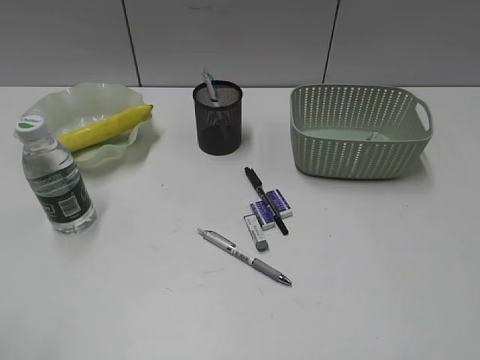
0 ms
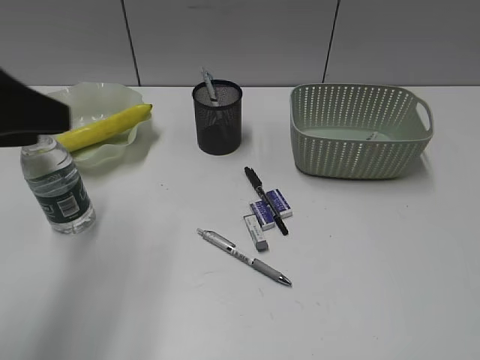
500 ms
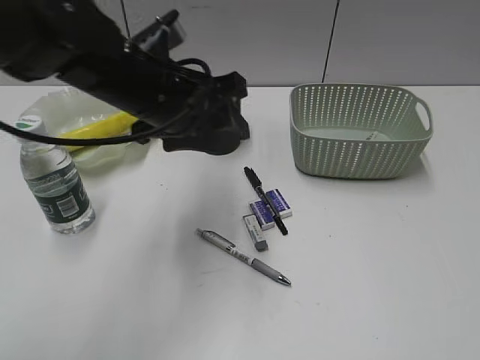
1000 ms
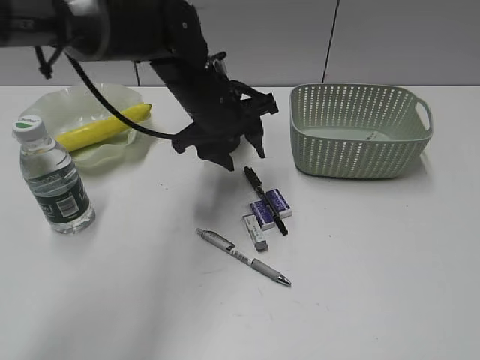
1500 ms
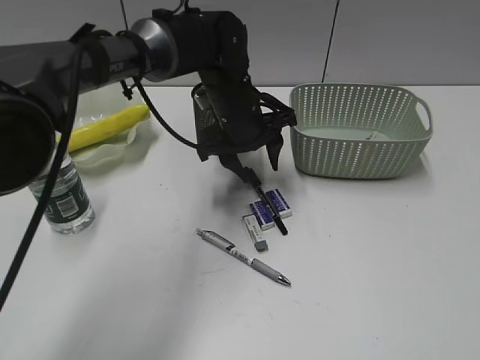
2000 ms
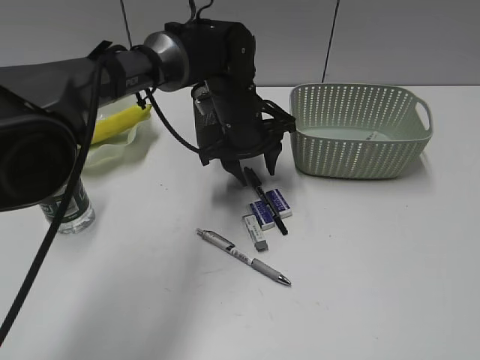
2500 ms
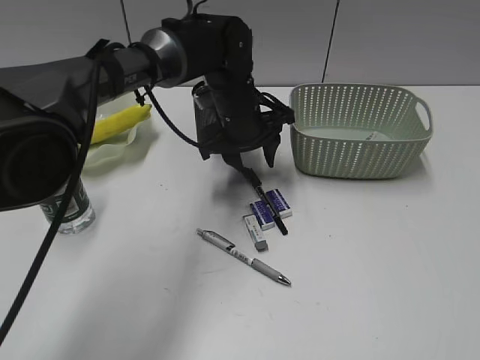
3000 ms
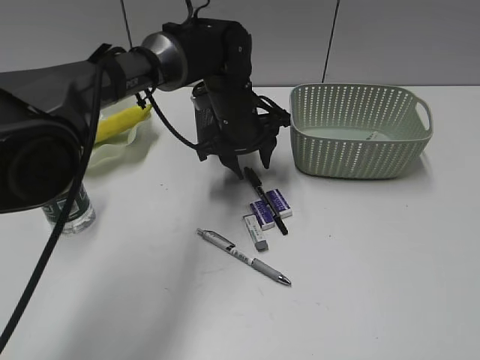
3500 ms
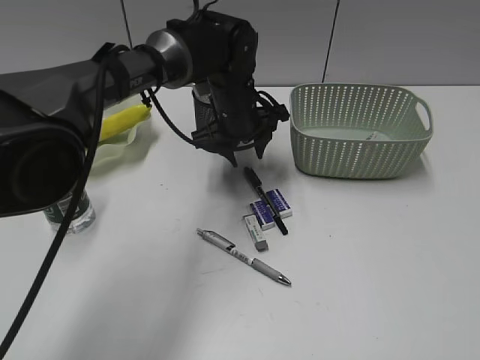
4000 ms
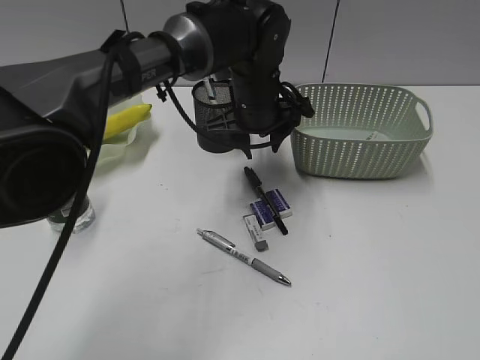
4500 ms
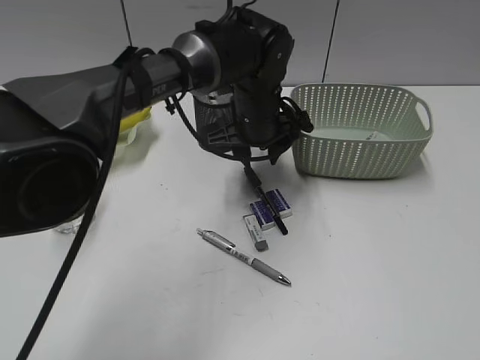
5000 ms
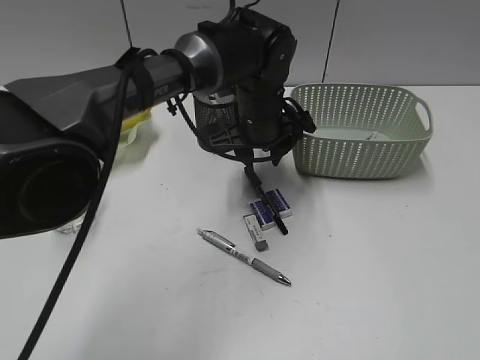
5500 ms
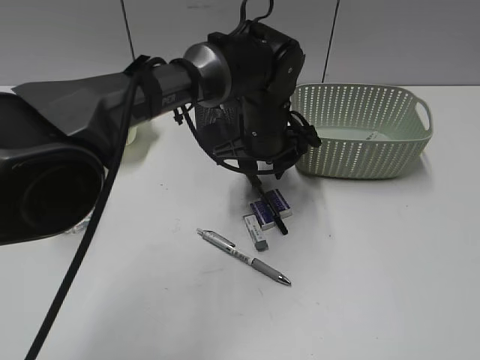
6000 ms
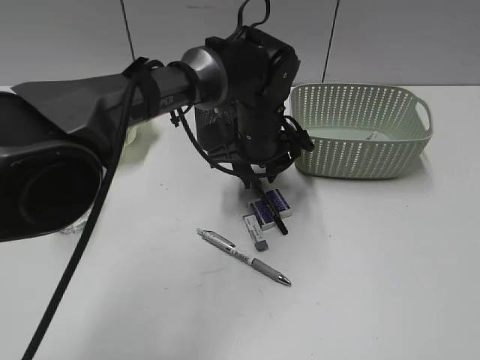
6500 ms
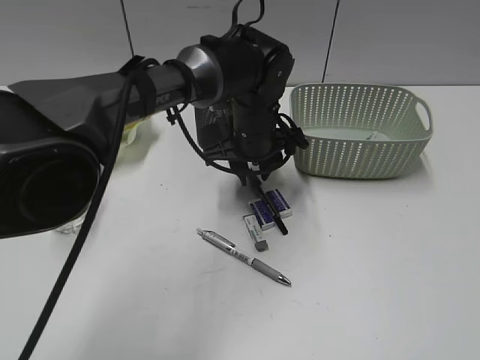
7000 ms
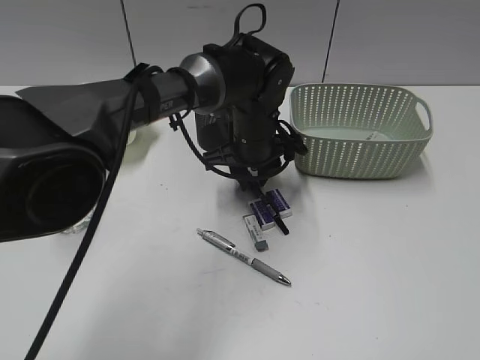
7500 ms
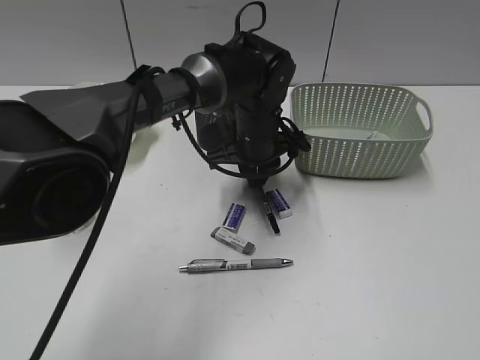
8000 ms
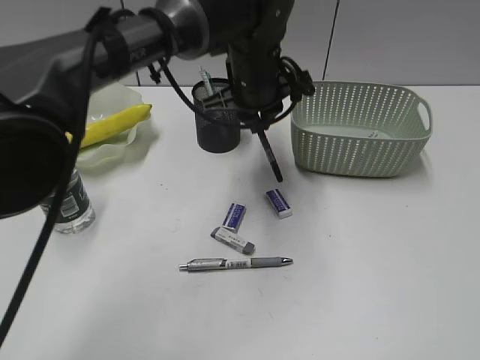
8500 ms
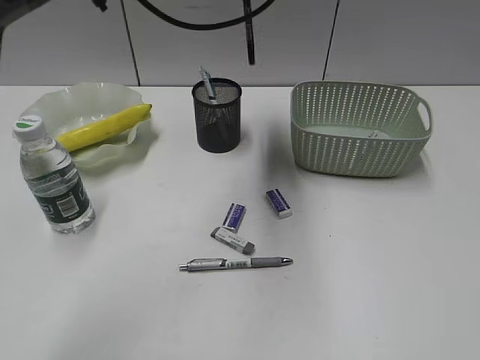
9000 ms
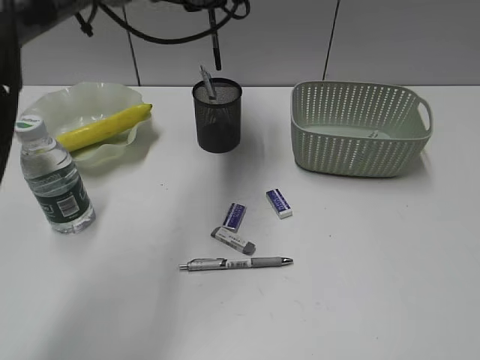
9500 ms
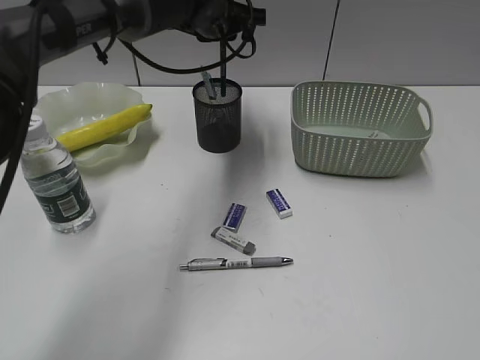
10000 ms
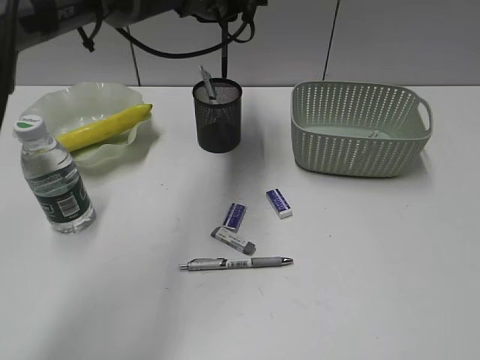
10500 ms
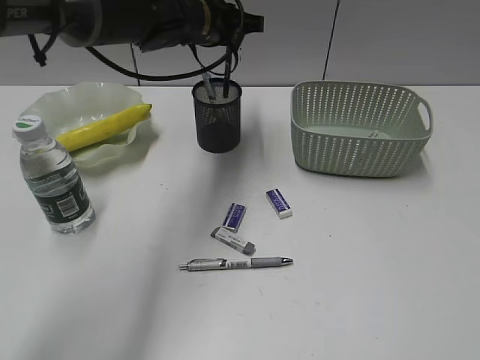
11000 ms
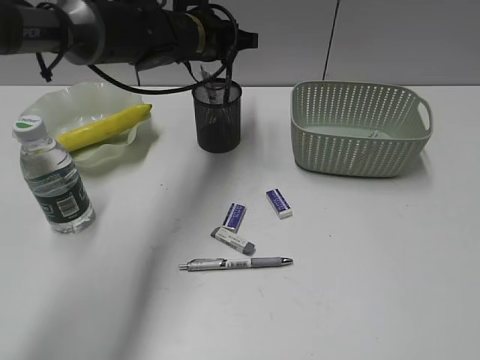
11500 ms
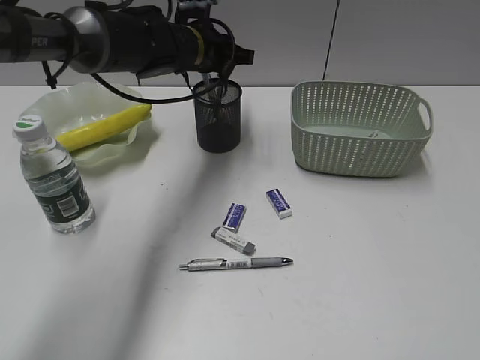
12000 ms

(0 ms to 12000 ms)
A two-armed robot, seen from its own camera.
Step, 0 ms - 7500 ms: Grasp the black pen with left gripper.
0 ms - 2000 ms: The left gripper goes about 50 cm forward and to the right.
2000 ms - 4000 ms: The grippers stay close to where they were, moving slightly.
4000 ms - 6000 ms: The left gripper shifts by about 5 cm.
6000 ms - 8000 ms: The left gripper closes.
8000 ms - 10000 ms: The left gripper heads upward, forward and to the left, covering some 15 cm.
10000 ms - 12000 ms: The left gripper shifts by some 5 cm.

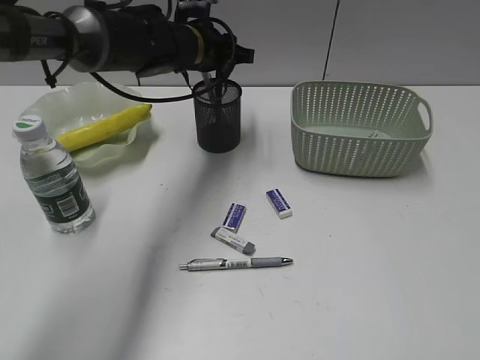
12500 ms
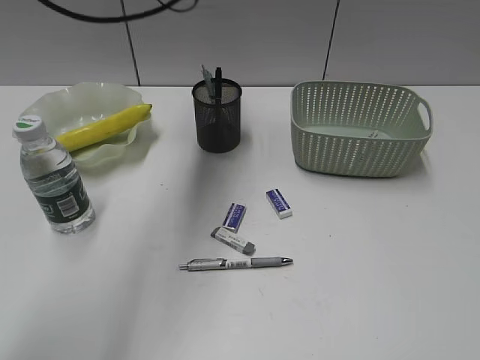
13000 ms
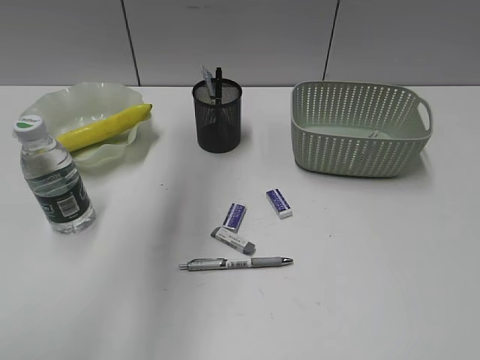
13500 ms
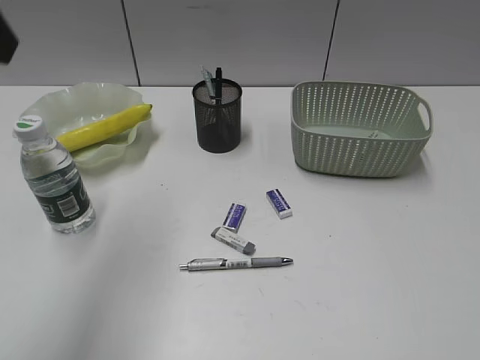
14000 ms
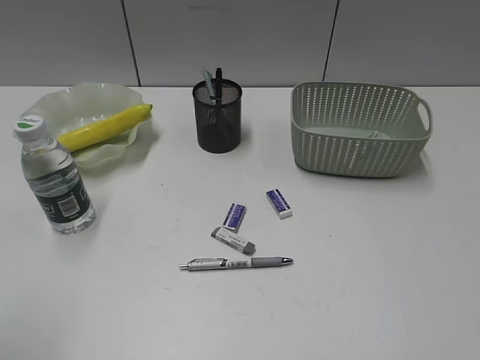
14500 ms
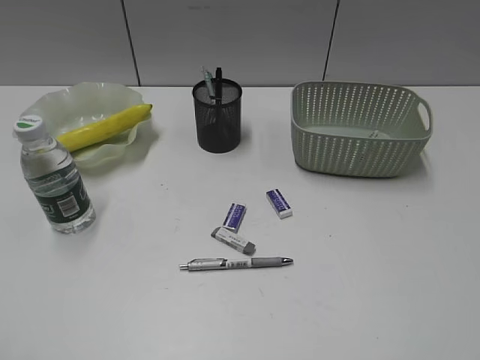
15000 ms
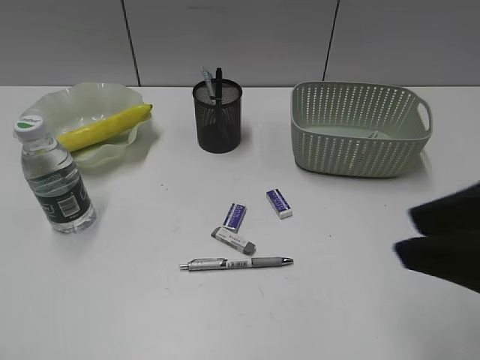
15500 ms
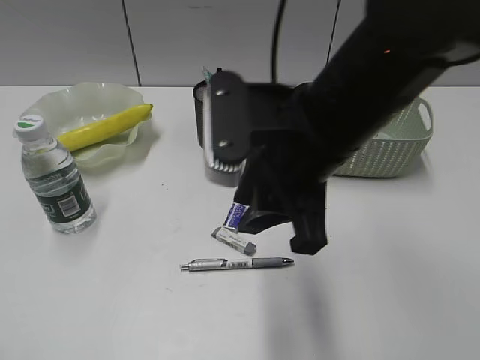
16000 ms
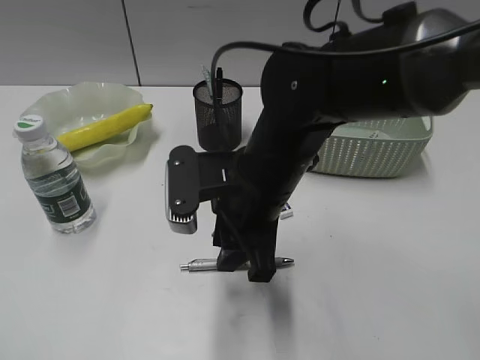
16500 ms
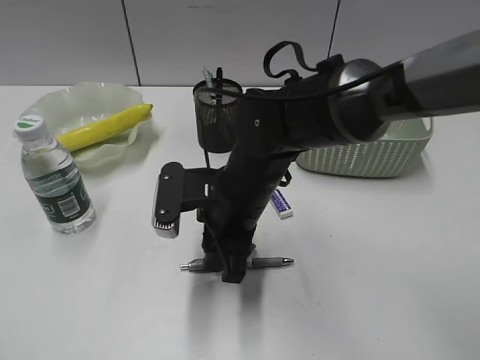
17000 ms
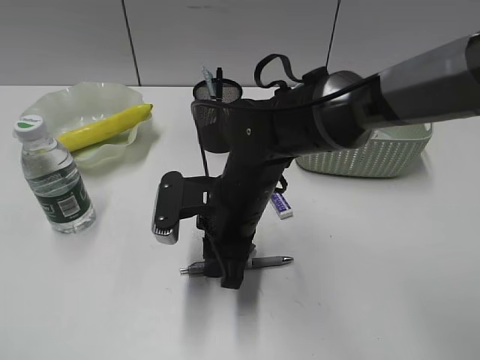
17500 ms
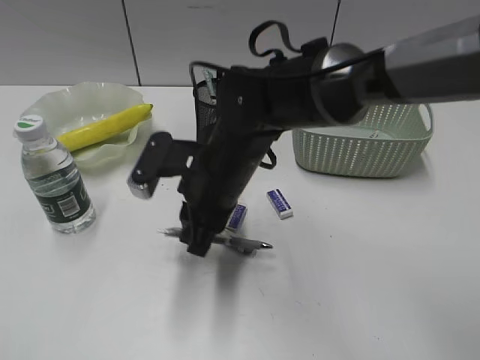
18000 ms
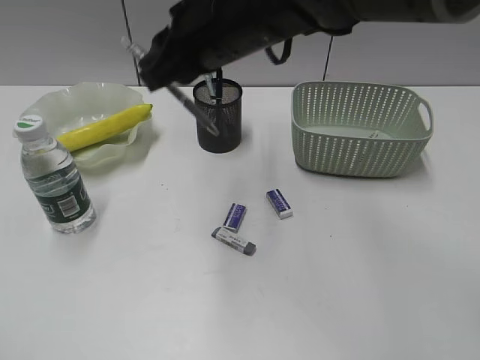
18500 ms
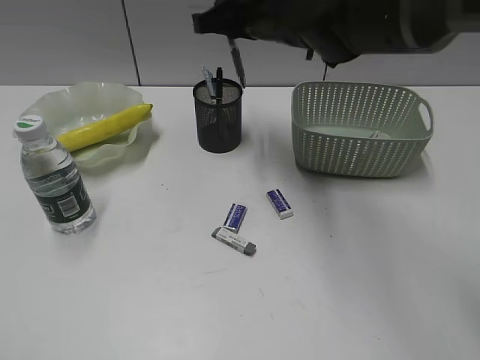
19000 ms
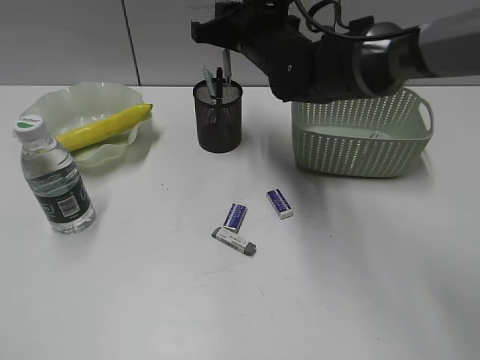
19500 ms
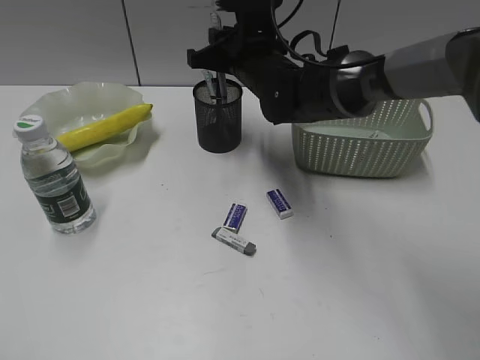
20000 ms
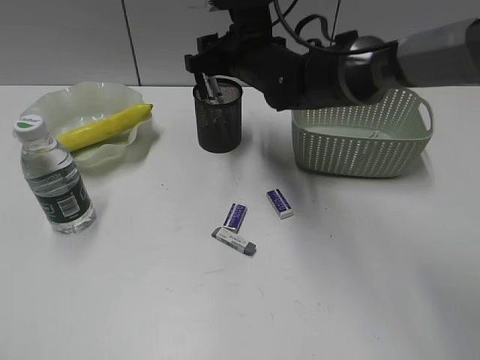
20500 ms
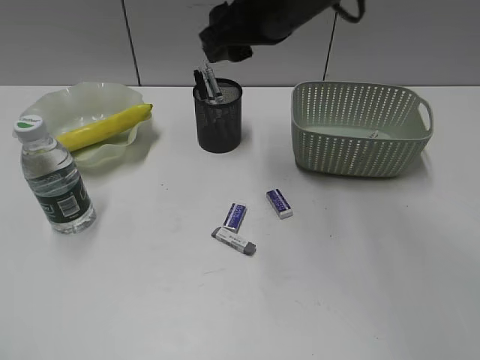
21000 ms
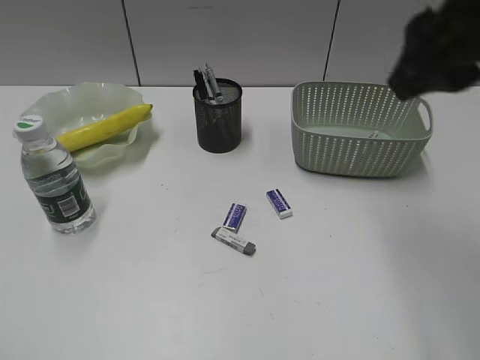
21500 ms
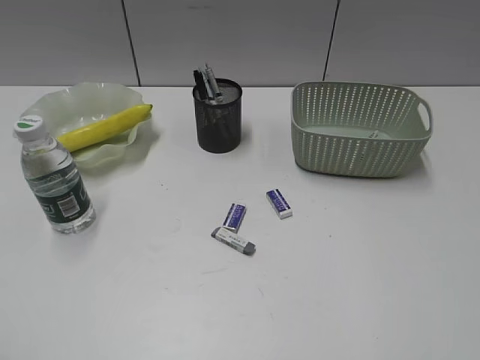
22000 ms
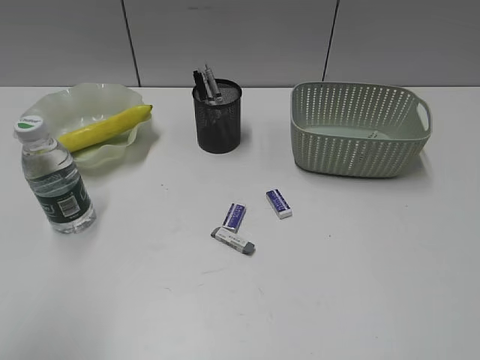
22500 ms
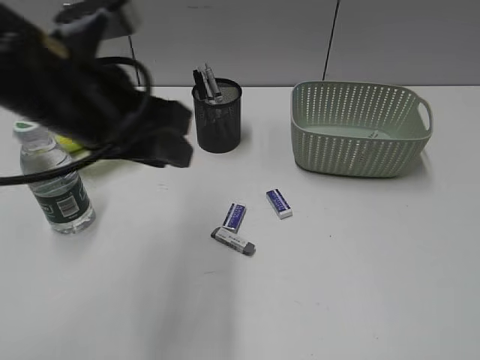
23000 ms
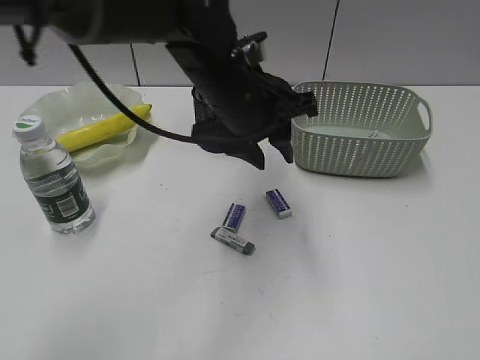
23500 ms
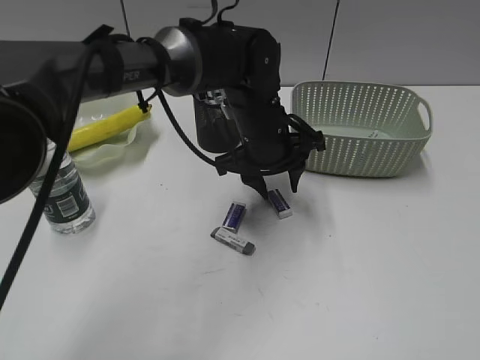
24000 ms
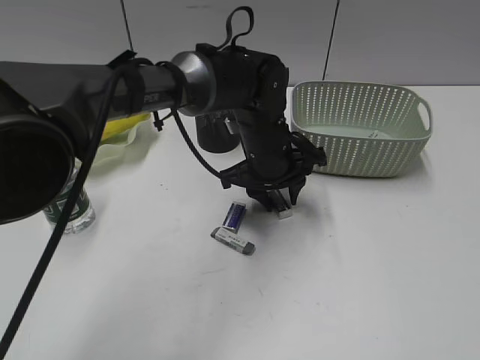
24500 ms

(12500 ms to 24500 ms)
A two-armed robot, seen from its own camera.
Step, 13000 ms - 17500 ms: Grasp the gray pen with right gripper.
Step, 18000 ms - 20000 ms: Place the gray pen in pen holder with right gripper.
12500 ms - 14500 ms: The left gripper moves backward and to the left, about 50 cm.
14500 ms - 16500 ms: The right gripper heads to the left, forward and downward, covering roughly 40 cm. Meanwhile the left gripper goes approximately 5 cm backward.
16500 ms - 18500 ms: The right gripper shifts some 10 cm upward and forward.
18500 ms - 20500 ms: The right gripper goes about 15 cm forward and downward, and opens up.
20500 ms - 22500 ms: The right gripper is displaced backward and to the right by approximately 50 cm, while the left gripper is displaced forward and to the right by some 10 cm.
22500 ms - 24500 ms: The left gripper shifts roughly 50 cm to the right, forward and downward.

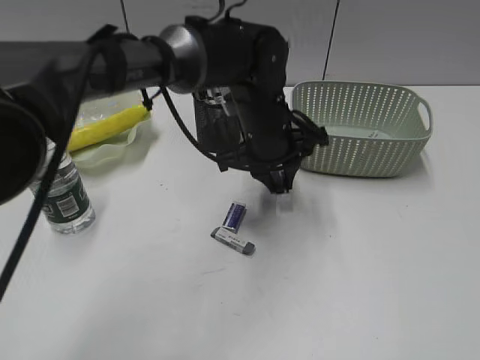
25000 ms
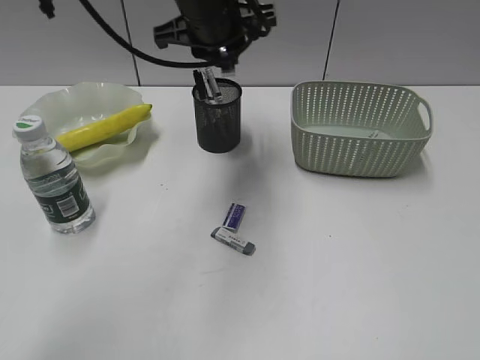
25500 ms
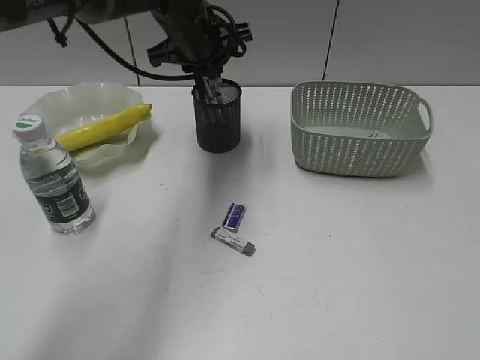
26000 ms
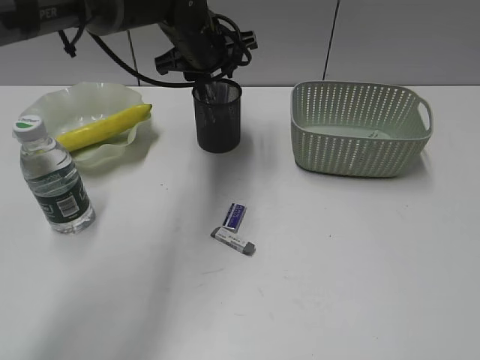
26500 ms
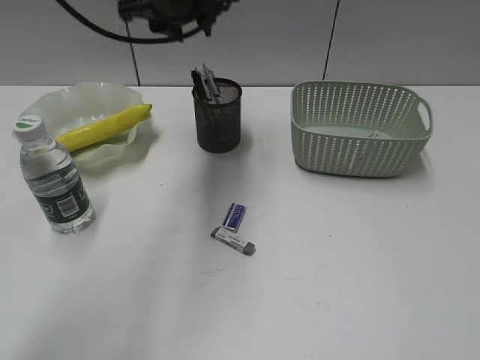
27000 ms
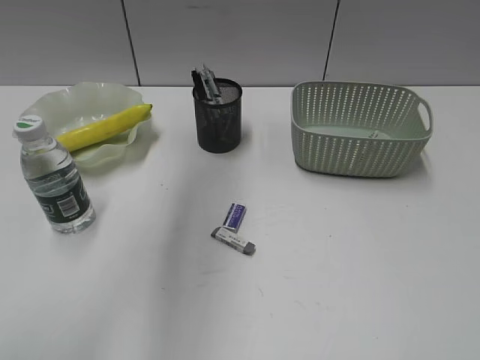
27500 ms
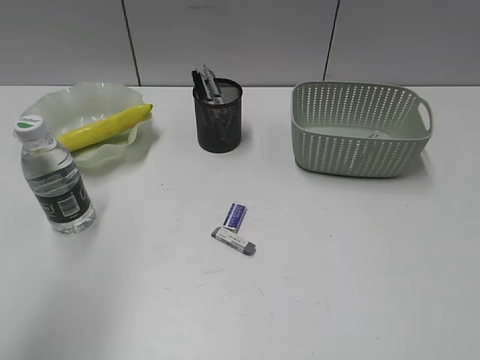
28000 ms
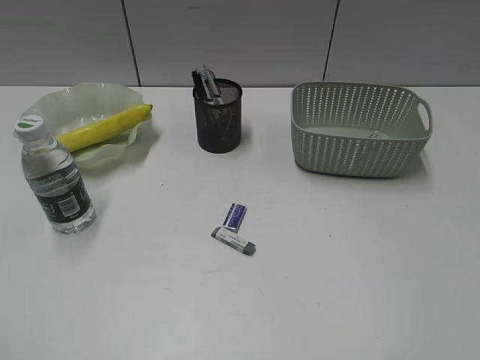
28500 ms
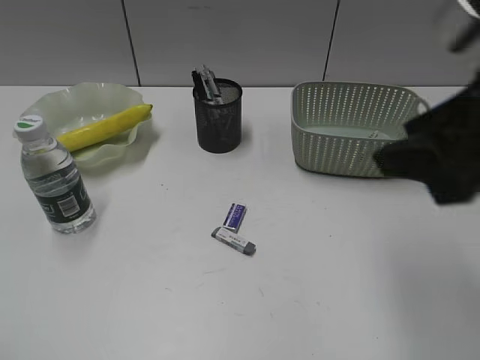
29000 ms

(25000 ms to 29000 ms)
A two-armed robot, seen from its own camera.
Step, 25000 ms - 26500 ms: Place the eraser in pen holder with left gripper.
25000 ms - 27000 ms: The left gripper goes up and down, roughly 15 cm each way, reversing 2 times, and opens its fingers.
27000 ms - 29000 ms: The right gripper goes roughly 20 cm forward and to the left; the left gripper shifts some 50 cm backward and to the left.
